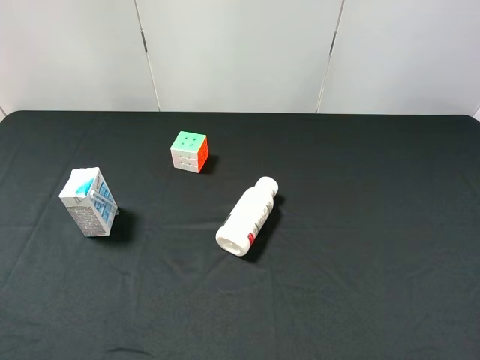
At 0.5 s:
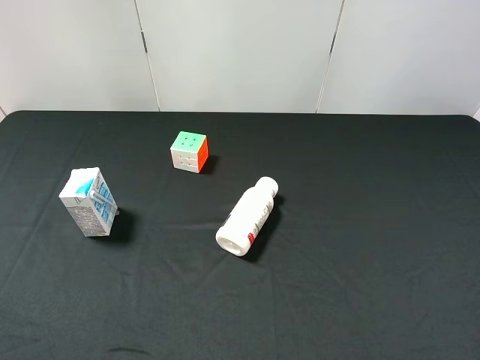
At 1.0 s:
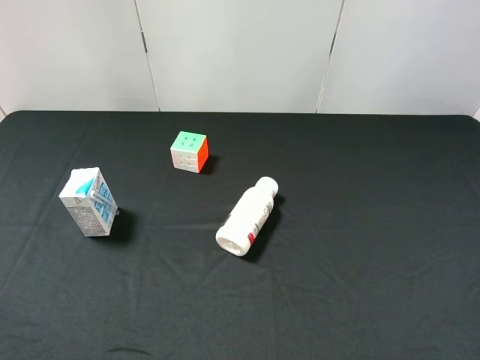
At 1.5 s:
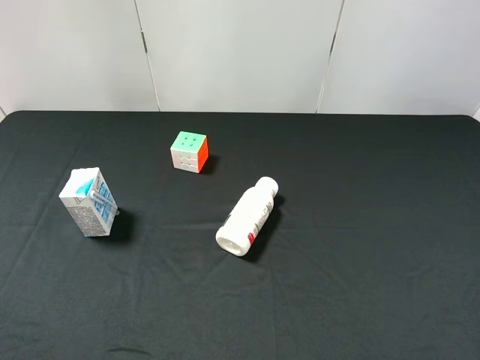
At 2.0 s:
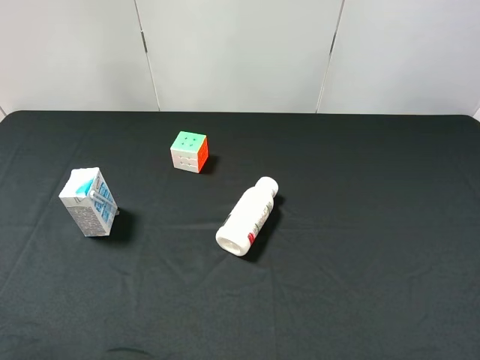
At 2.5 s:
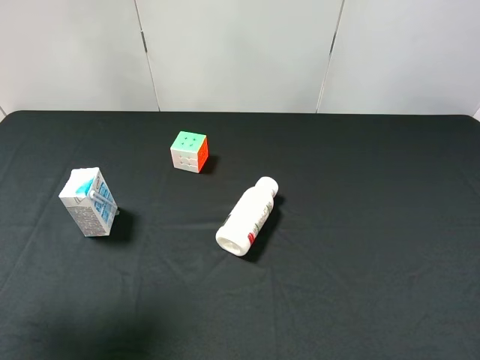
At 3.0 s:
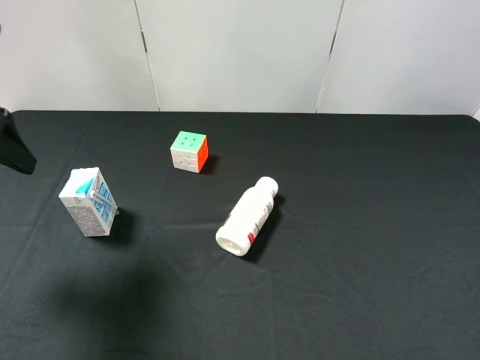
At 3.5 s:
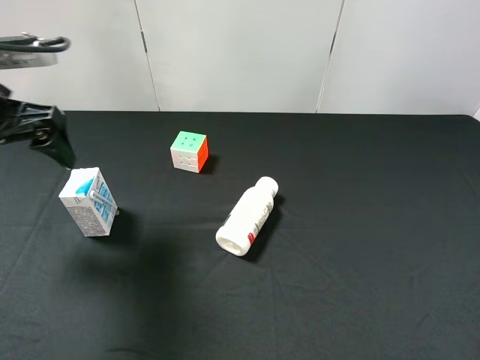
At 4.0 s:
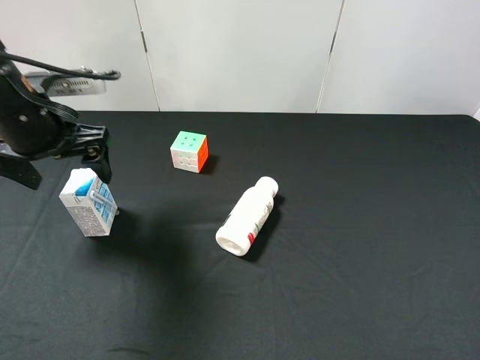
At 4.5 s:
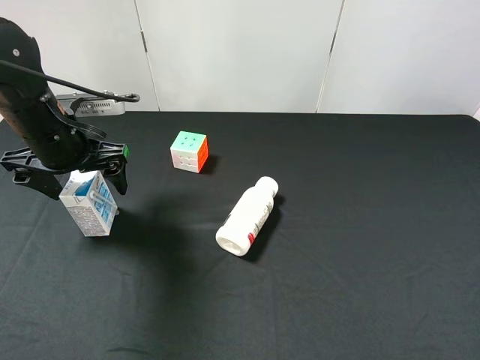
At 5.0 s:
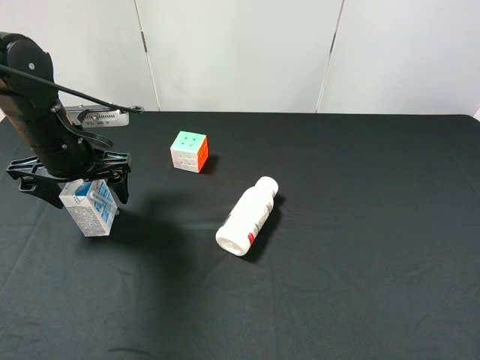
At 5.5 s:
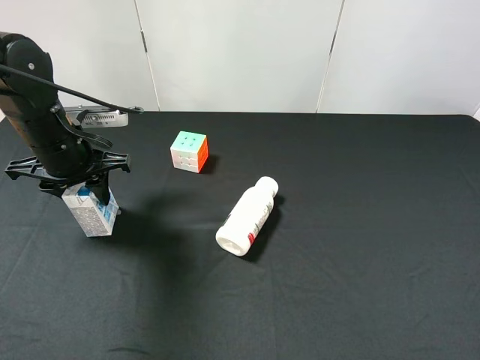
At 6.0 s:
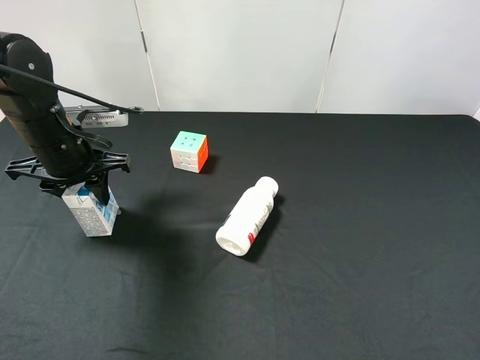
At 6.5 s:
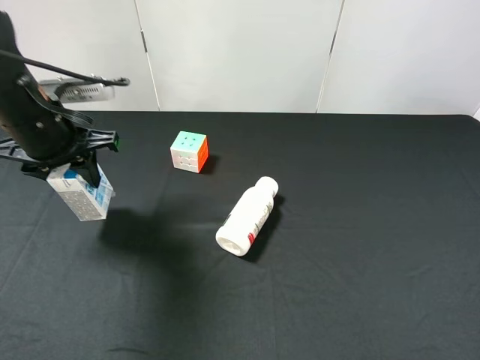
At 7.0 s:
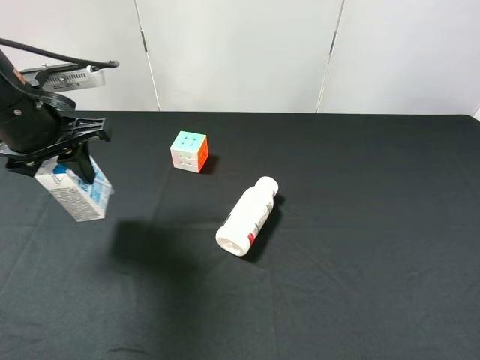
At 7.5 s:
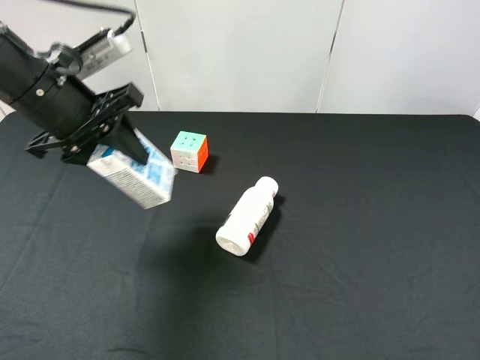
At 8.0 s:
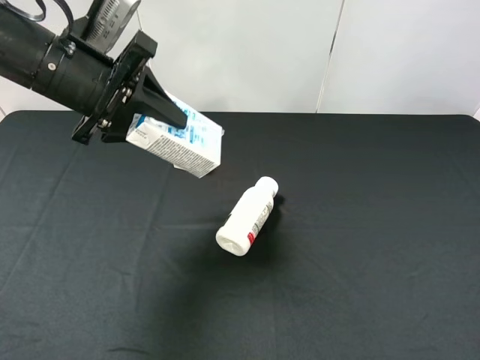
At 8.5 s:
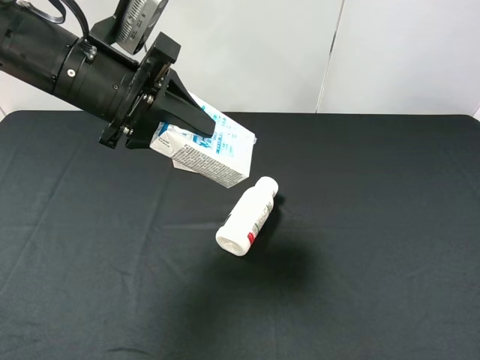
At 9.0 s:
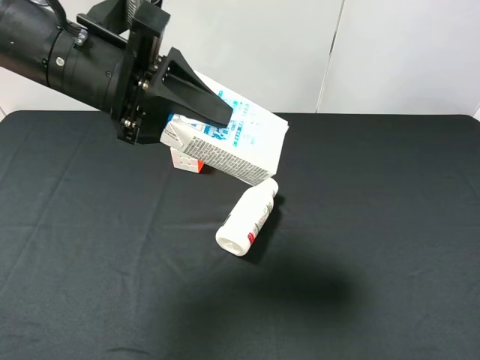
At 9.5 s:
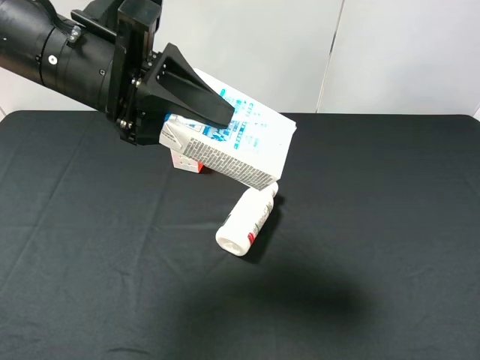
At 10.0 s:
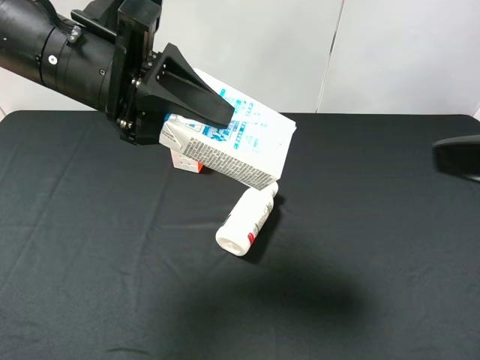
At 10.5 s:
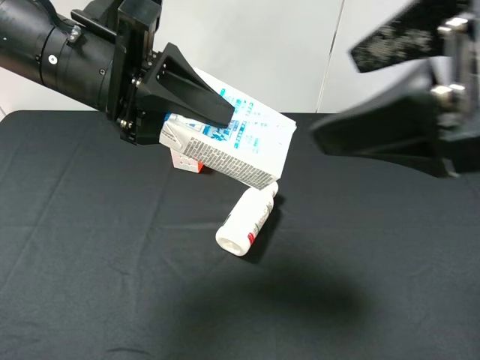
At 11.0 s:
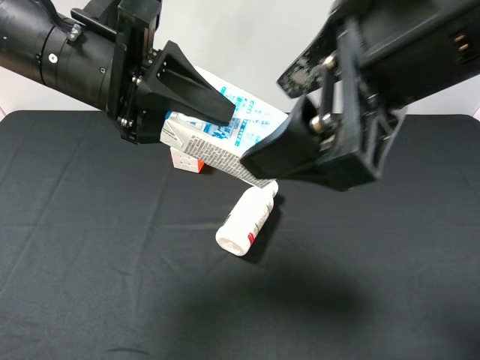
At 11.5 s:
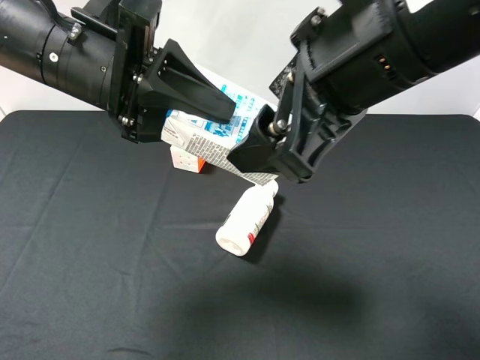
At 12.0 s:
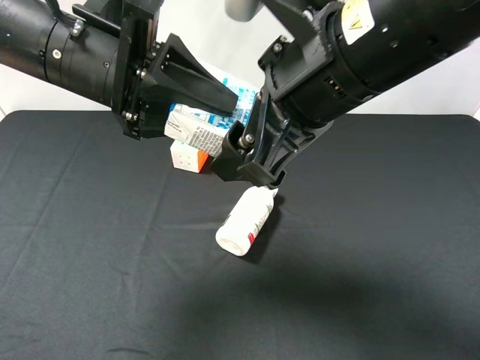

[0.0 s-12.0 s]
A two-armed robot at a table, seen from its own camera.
Task of the whole recording: use the left gripper to pick up the item and transfer it from the left gripper to the right gripper.
2.0 to 4.0 s: The left gripper is displaced forward and downward by about 25 cm.
4.0 to 6.0 s: The left gripper travels downward by about 5 cm, and closes up.
6.0 to 8.0 s: The left gripper goes roughly 10 cm upward.
8.0 to 10.0 s: The left gripper ends up approximately 5 cm from where it was. Meanwhile the right gripper travels forward, upward and to the left by some 15 cm.
10.0 to 12.0 s: The right gripper travels to the left and forward by approximately 20 cm.

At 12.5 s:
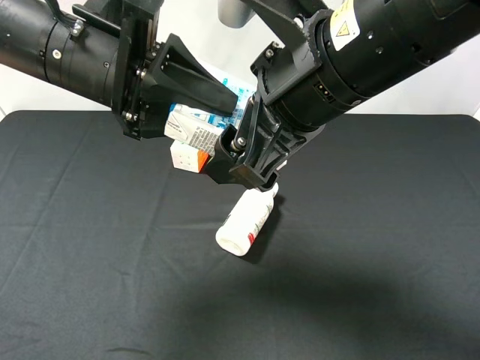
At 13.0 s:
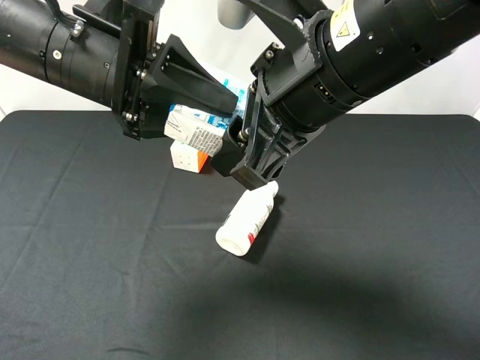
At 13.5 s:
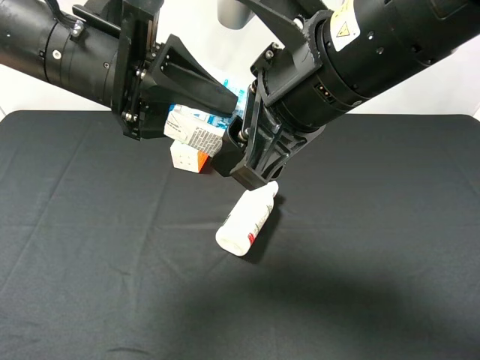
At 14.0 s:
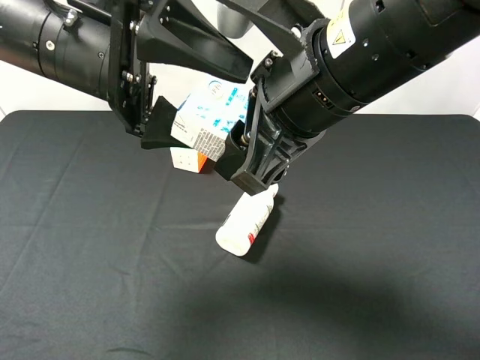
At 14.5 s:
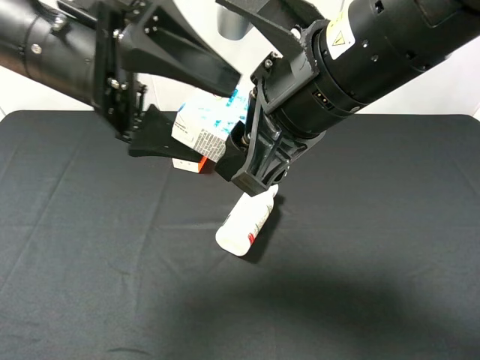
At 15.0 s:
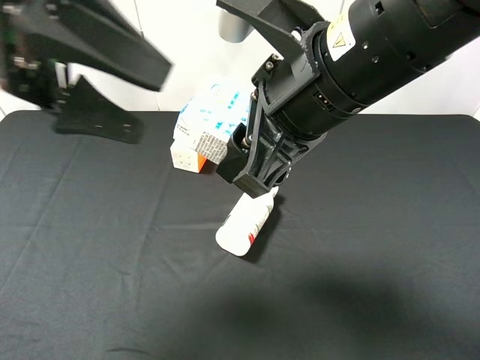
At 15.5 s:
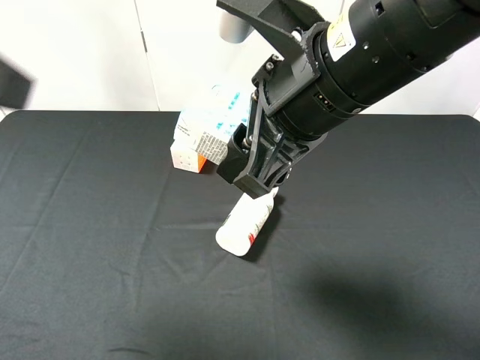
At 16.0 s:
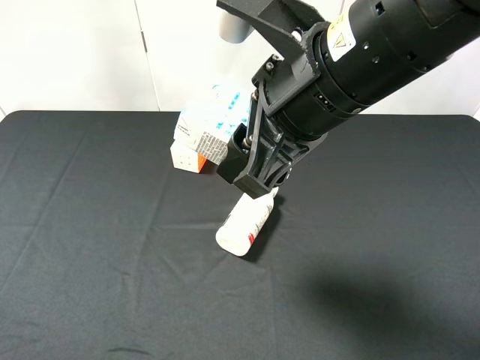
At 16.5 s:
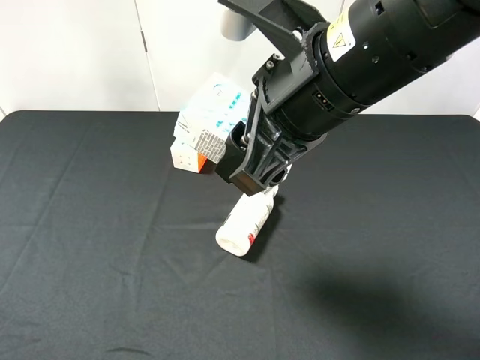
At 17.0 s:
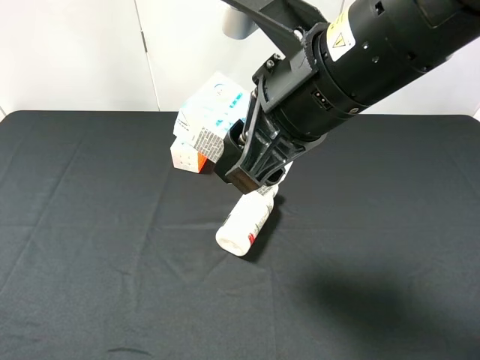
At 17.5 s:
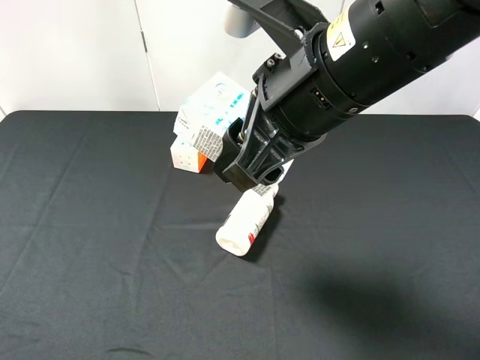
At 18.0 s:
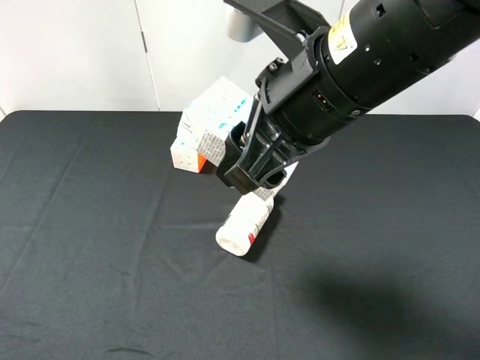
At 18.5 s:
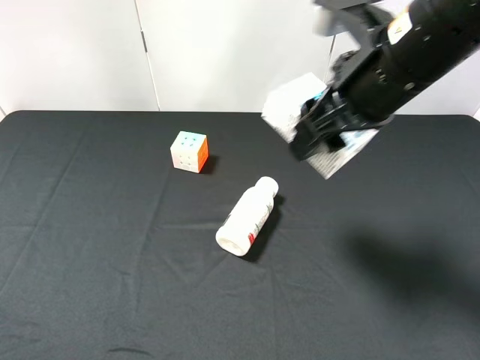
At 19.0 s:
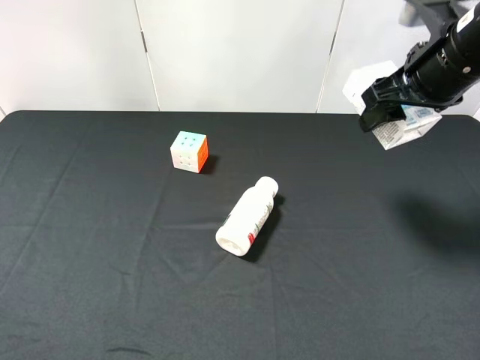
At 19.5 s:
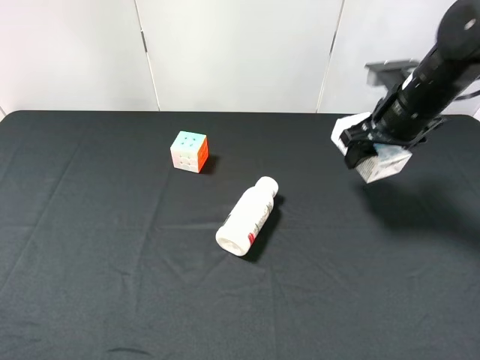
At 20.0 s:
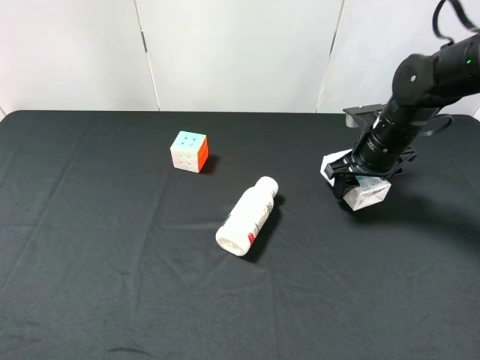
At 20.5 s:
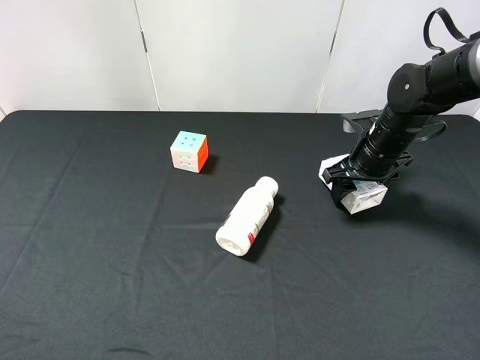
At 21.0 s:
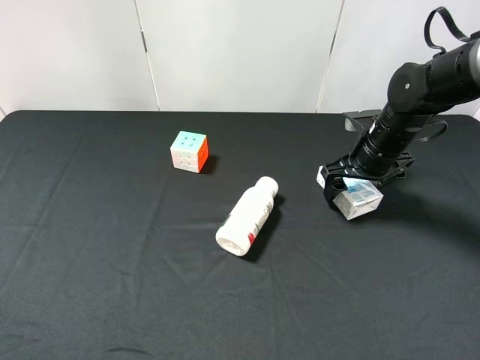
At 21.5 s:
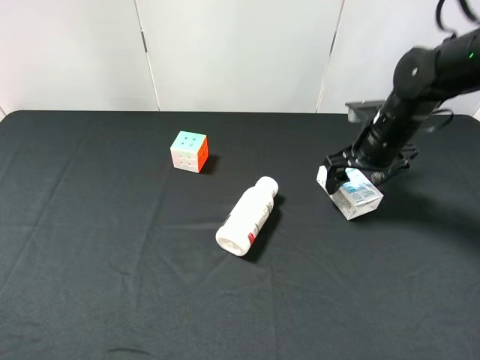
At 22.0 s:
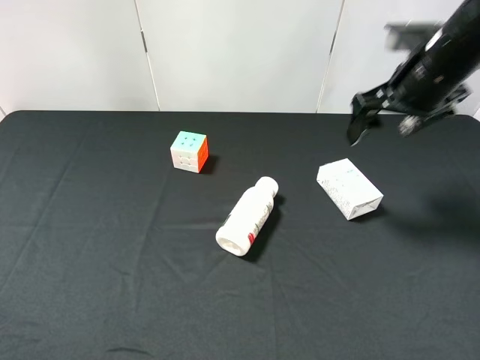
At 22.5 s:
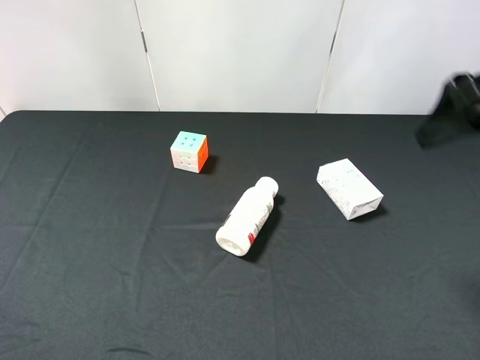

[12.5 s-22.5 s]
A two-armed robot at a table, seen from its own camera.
Task of the whole recording: use the left gripper to pick up the item and transfer it from the left gripper to the right gripper.
12.5 to 14.5 s: The left gripper opens. Meanwhile the right gripper closes.
14.5 to 16.5 s: The left gripper shifts approximately 30 cm backward and to the left.
16.5 to 18.5 s: The right gripper heads to the right and forward, covering about 10 cm.
18.5 to 20.5 s: The right gripper travels downward, forward and to the right by some 20 cm.
20.5 to 22.5 s: The right gripper travels upward and backward by about 25 cm, and opens.

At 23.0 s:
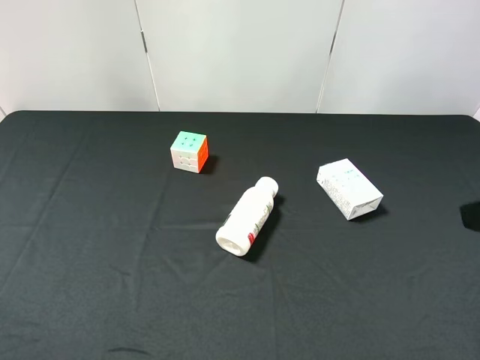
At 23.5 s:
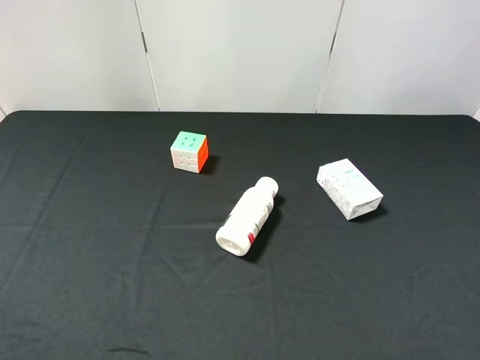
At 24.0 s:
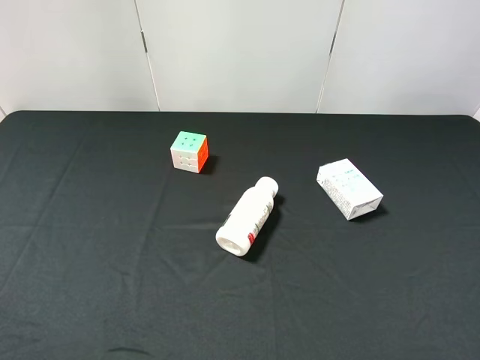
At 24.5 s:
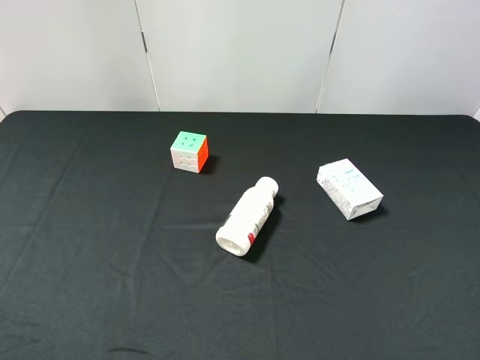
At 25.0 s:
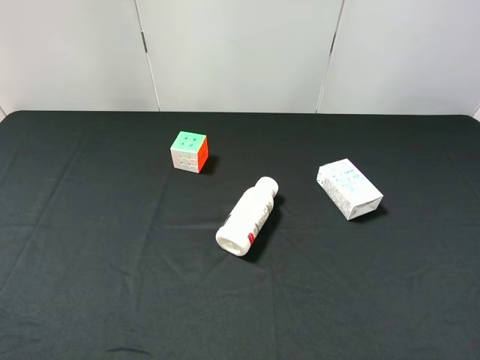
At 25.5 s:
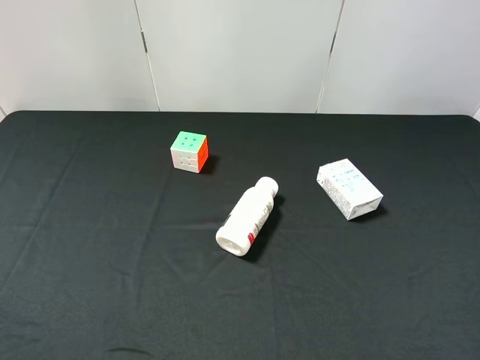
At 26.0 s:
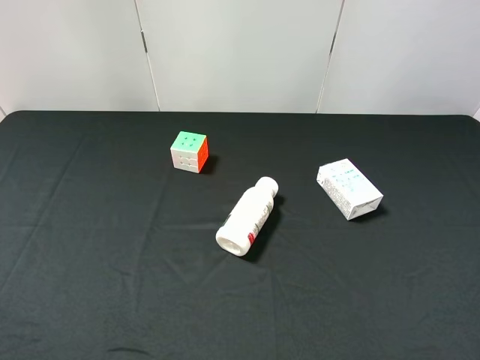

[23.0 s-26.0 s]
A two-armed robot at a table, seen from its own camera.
Task of the whole recording: use the left gripper to pick up the item and transfer it from the left gripper to the right gripper.
24.5 to 26.0 s: The two grippers keep their place.
